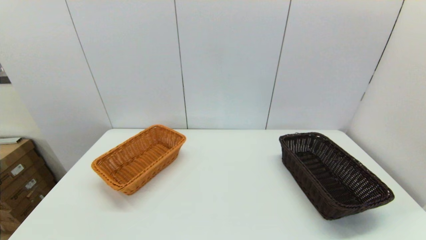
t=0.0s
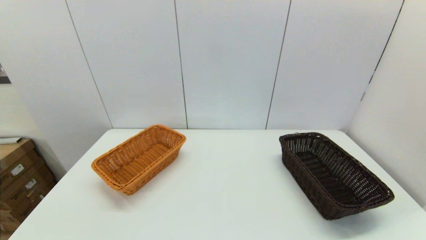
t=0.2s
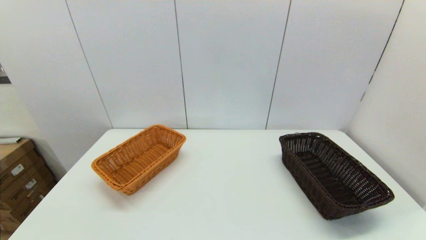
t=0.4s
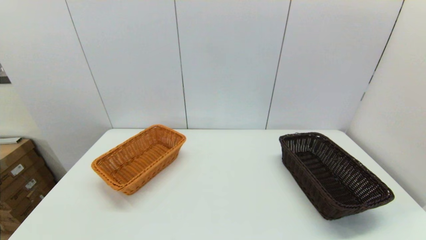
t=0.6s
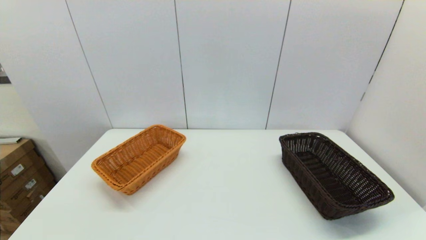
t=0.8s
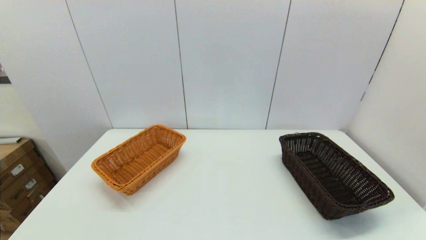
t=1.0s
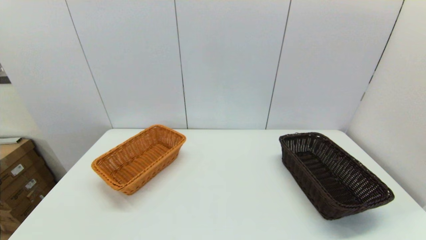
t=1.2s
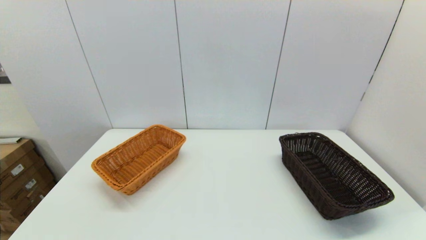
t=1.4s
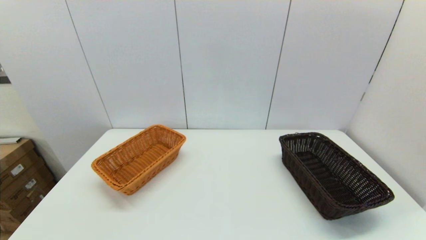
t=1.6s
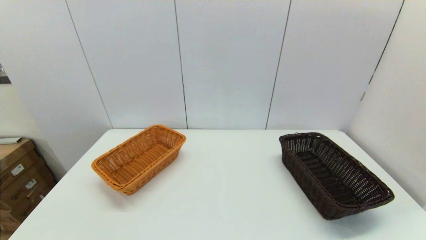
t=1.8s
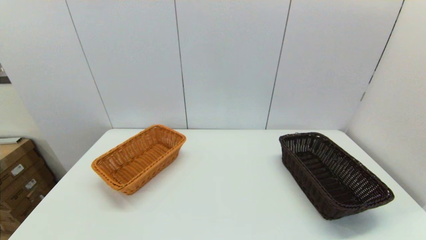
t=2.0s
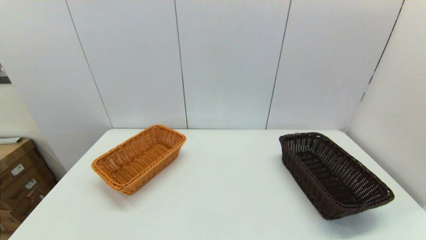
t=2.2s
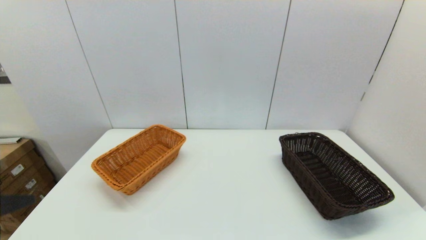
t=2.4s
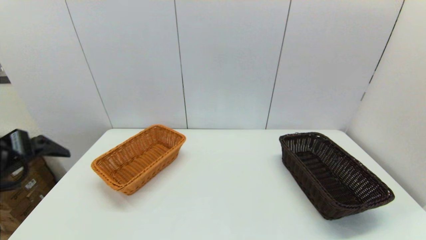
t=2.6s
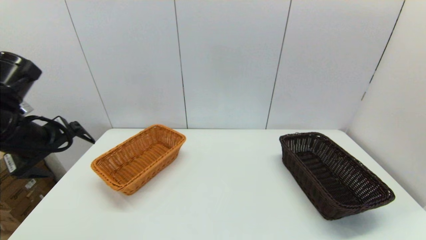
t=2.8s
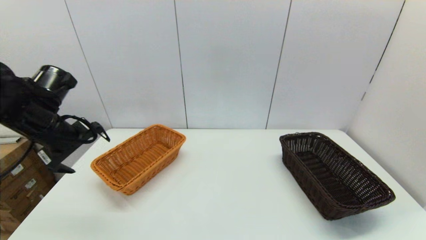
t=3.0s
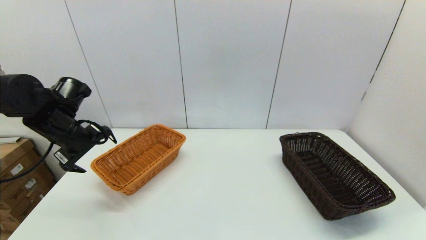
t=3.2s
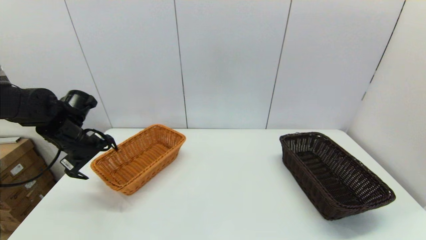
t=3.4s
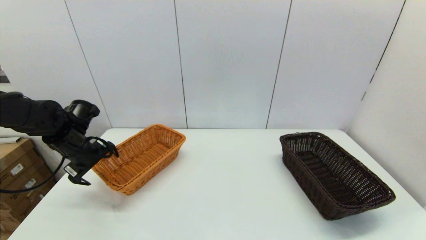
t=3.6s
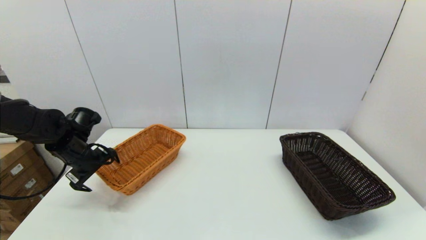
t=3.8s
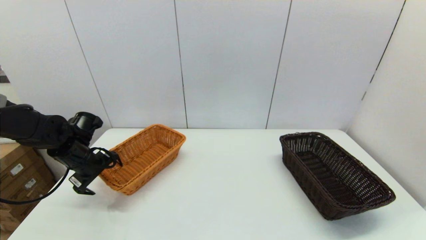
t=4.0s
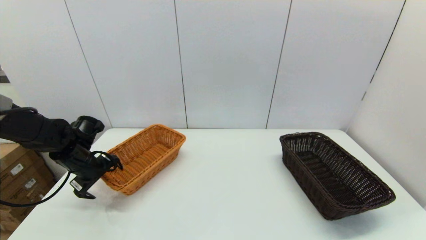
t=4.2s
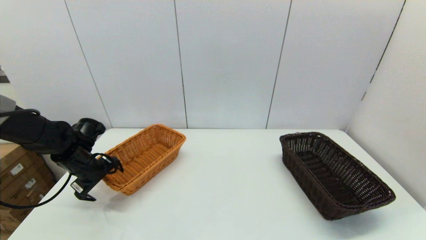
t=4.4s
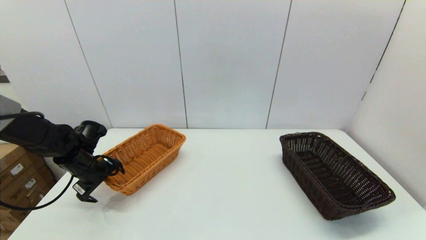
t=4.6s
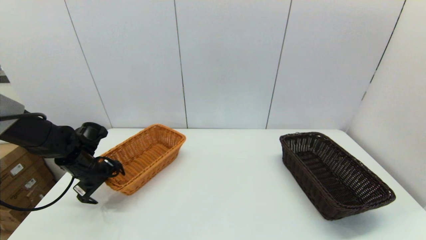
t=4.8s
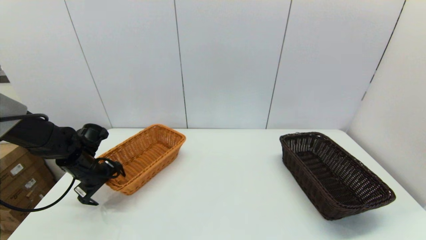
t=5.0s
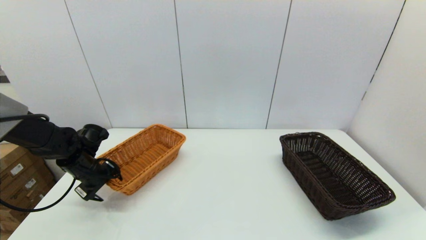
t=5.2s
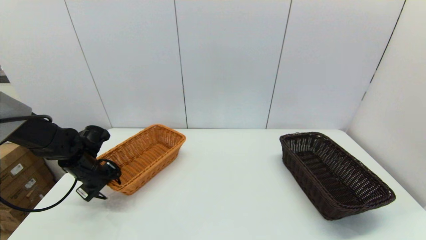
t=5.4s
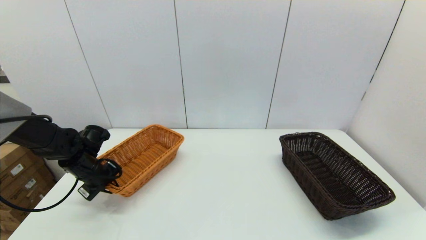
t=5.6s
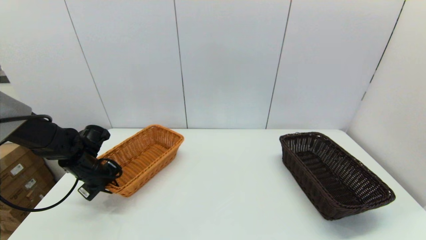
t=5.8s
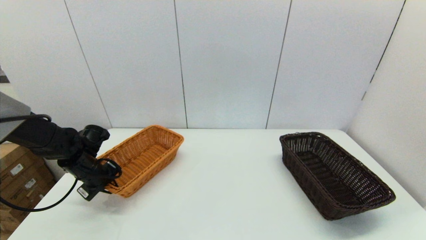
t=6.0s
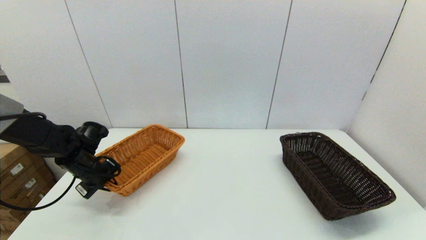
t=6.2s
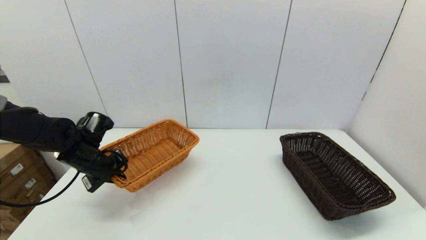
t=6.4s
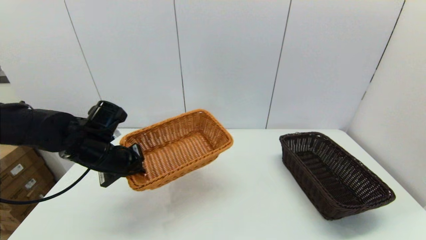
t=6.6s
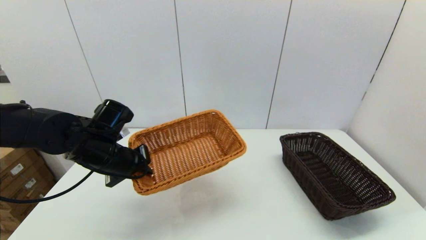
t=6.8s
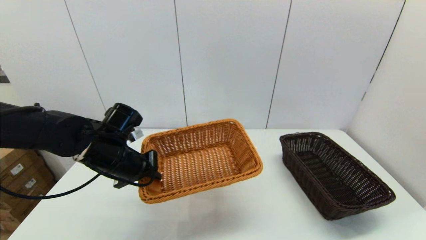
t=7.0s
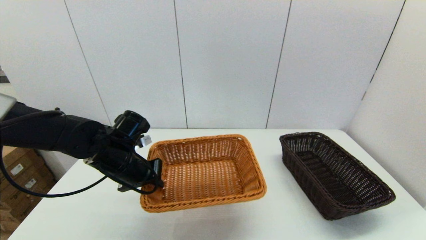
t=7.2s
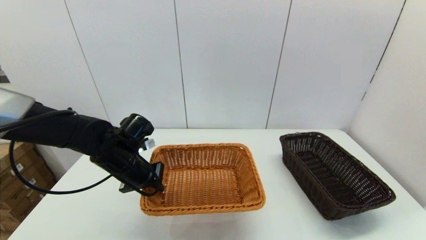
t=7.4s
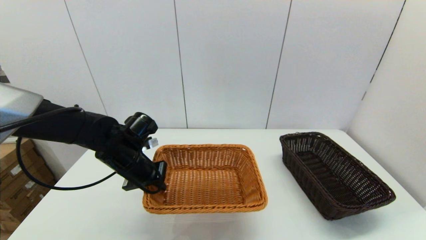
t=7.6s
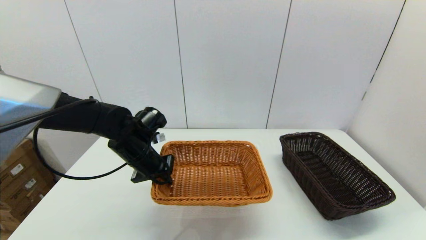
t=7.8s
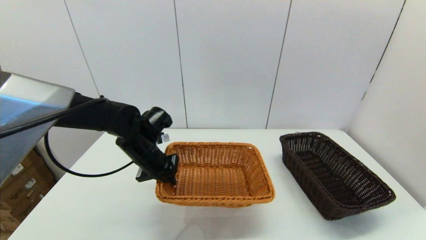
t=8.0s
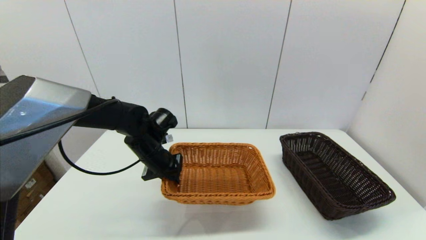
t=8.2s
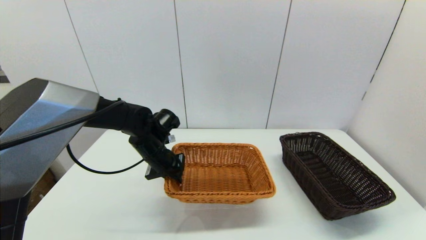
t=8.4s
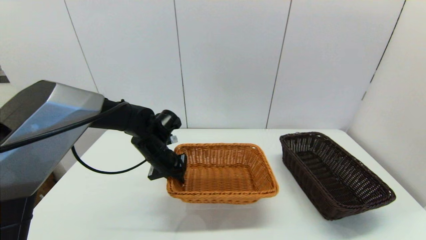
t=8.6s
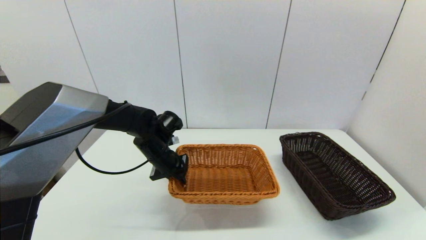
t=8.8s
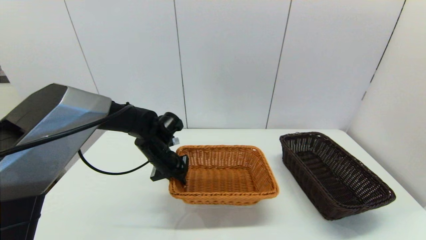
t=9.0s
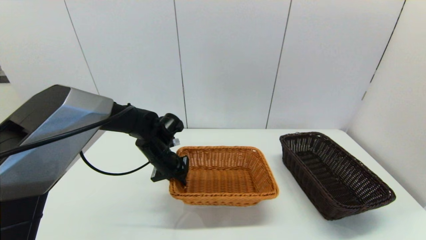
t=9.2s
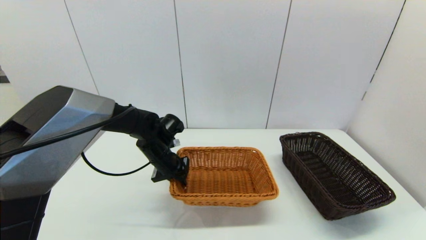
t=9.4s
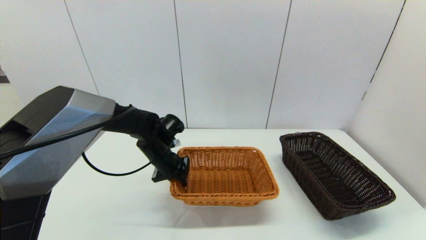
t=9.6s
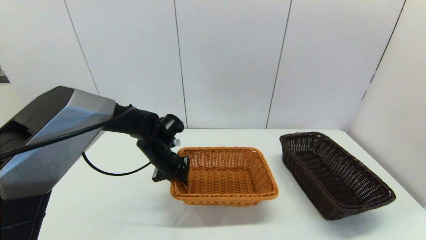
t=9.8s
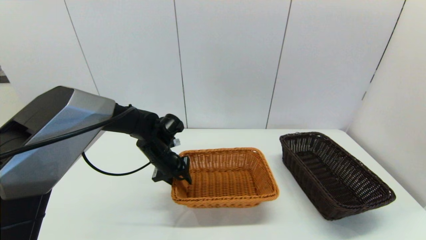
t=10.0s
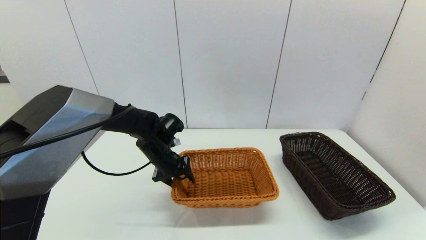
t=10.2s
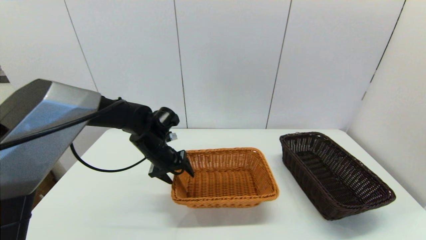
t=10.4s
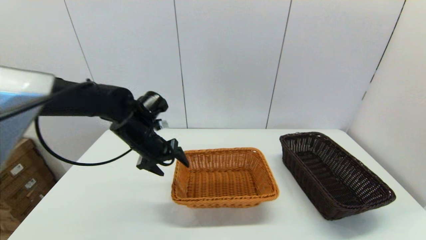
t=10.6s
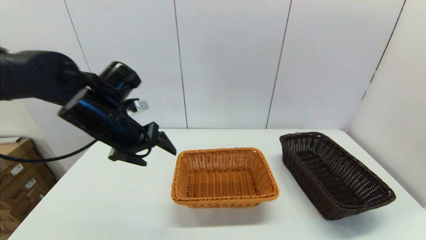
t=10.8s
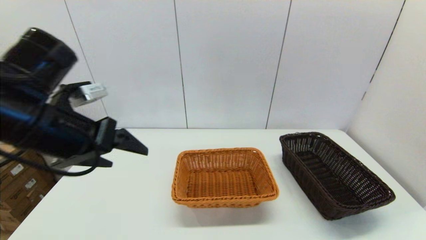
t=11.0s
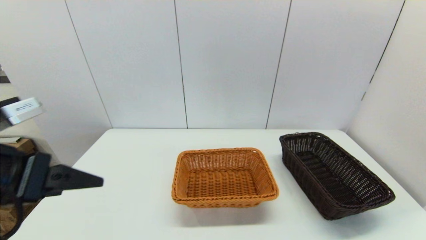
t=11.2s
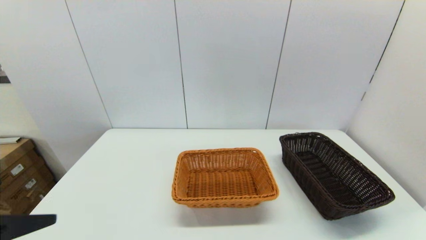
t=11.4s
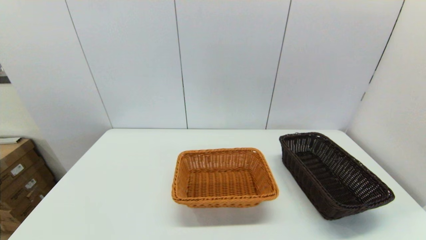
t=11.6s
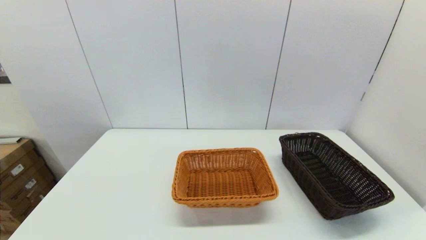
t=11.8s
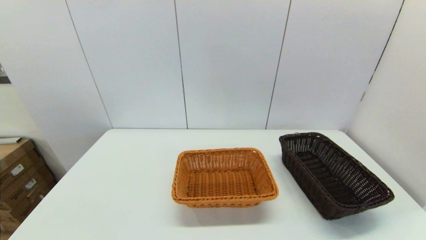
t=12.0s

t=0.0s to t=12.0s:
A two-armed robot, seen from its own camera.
Task of the whole recording: stack a basket on top of another basket.
Step, t=2.2s to t=6.0s: Grasp the light basket with the left gripper.
Step, t=6.2s to t=10.8s: Place the light basket on the middle of the table with the left gripper.
t=0.0s to t=1.6s: Both grippers stay about where they are.
t=1.6s to t=3.0s: The left gripper shifts approximately 35 cm forward and upward.
t=3.0s to t=4.4s: The left gripper heads downward, covering roughly 15 cm.
t=4.4s to t=6.0s: The left gripper closes up.
t=6.0s to t=7.6s: The left gripper travels to the right and upward by roughly 15 cm.
t=7.6s to t=9.0s: The left gripper goes about 5 cm forward.
t=9.0s to t=10.4s: The left gripper opens.
t=10.4s to t=12.0s: The left gripper goes approximately 40 cm backward.

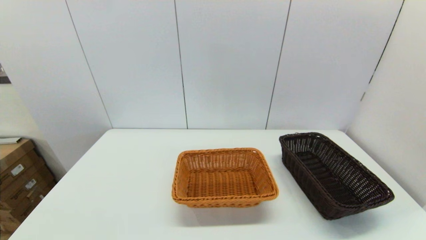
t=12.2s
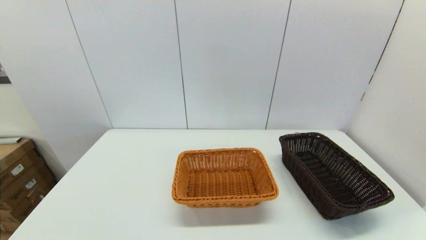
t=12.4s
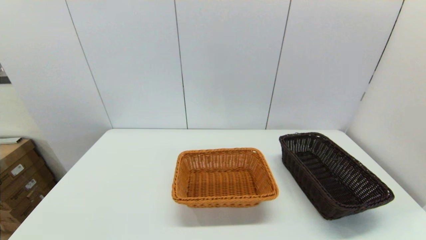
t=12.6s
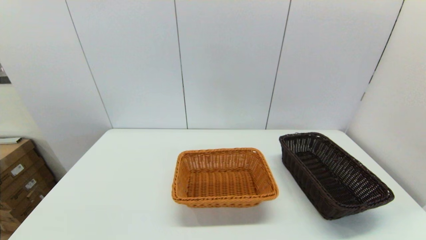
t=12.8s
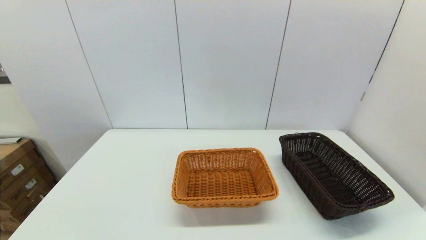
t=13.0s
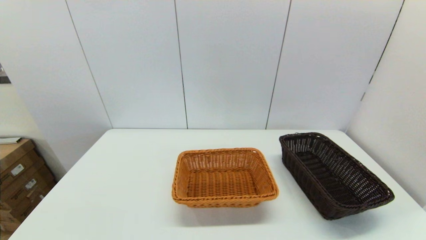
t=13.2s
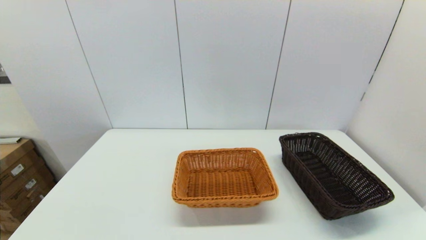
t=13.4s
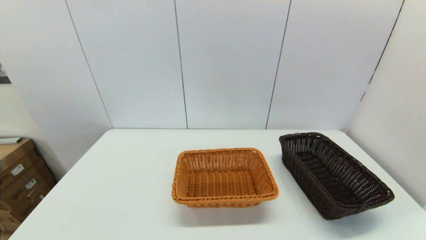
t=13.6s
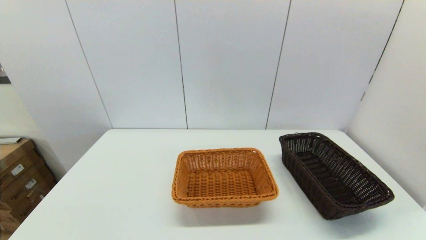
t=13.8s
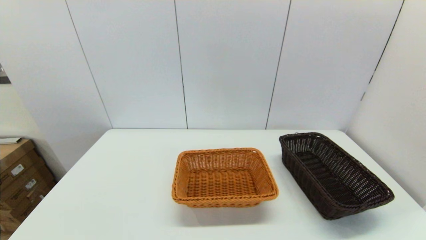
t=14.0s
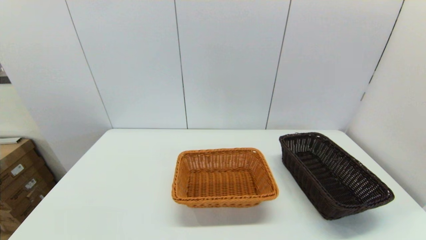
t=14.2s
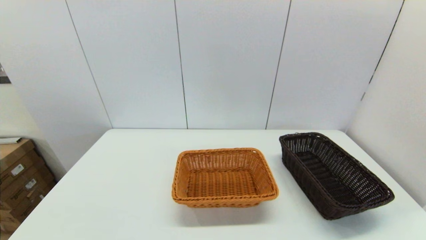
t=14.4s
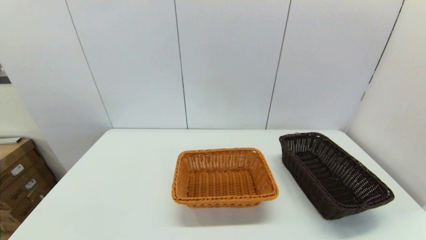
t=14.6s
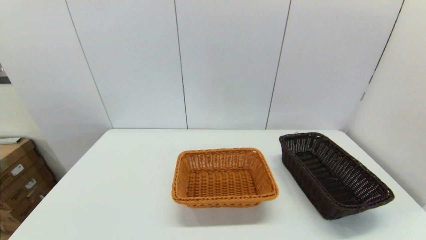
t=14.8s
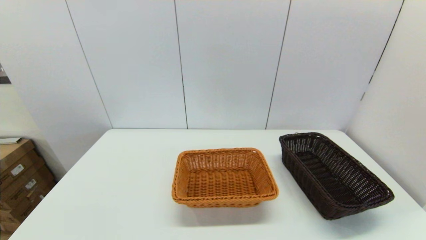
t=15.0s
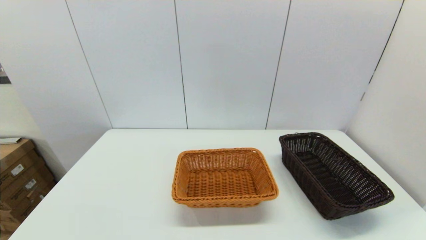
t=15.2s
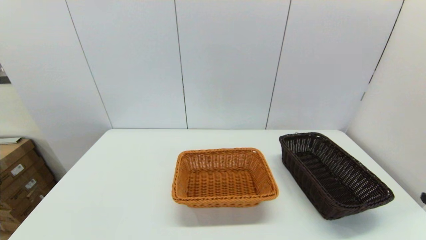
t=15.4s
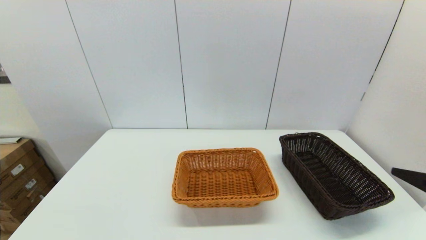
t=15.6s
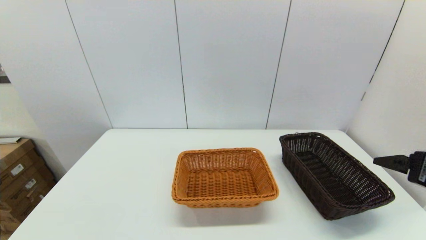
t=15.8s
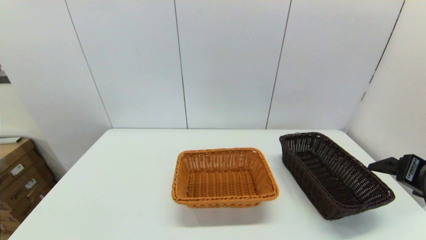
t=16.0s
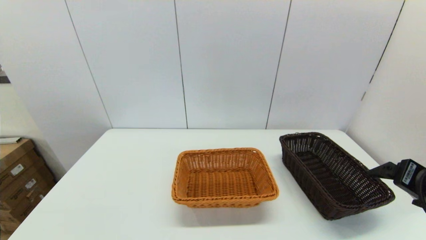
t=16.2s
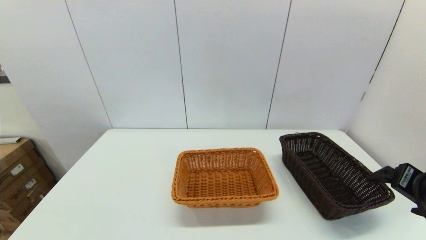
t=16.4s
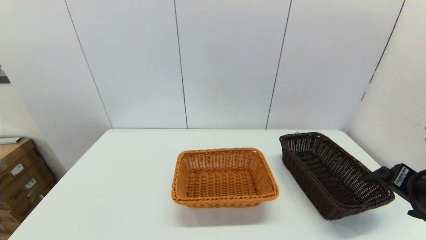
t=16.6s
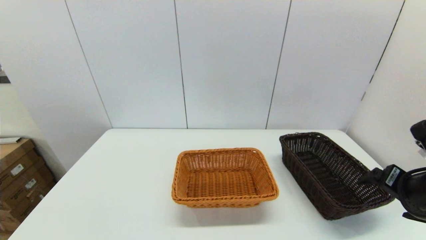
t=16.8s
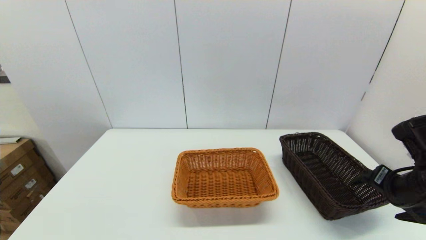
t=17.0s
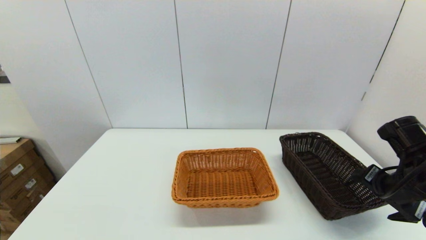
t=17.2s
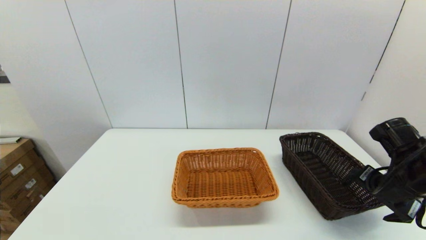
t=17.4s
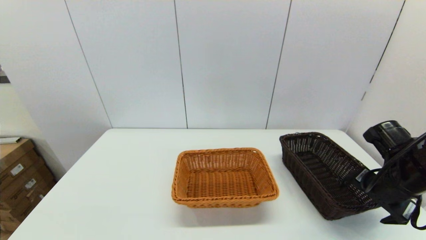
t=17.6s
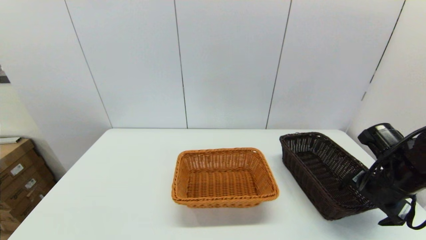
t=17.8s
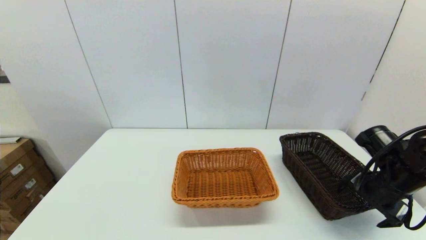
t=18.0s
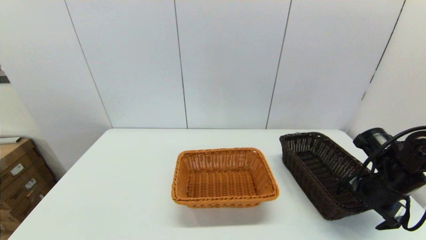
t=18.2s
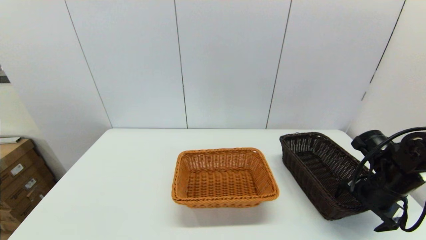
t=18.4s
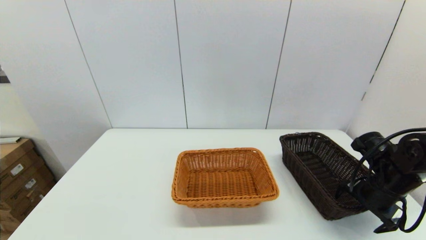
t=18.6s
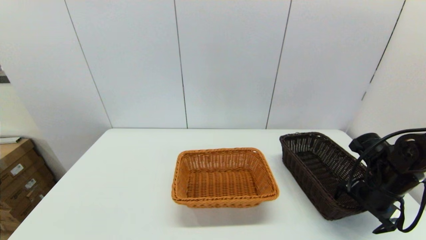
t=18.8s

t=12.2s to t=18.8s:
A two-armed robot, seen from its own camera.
Task of the whole recording: stack a basket on top of another basket.
t=15.4s to t=17.2s: The right gripper is displaced forward and downward by about 20 cm.
t=17.2s to t=18.8s: The right gripper moves downward, about 5 cm.
